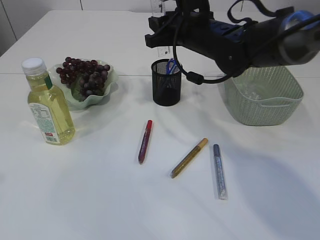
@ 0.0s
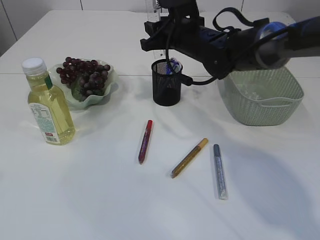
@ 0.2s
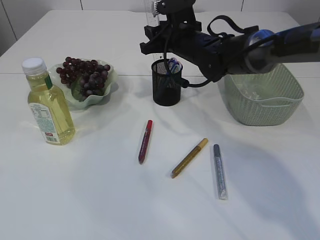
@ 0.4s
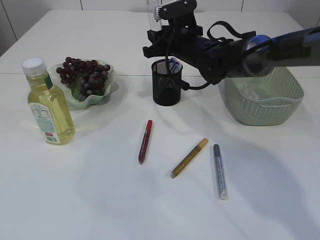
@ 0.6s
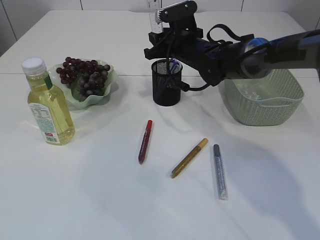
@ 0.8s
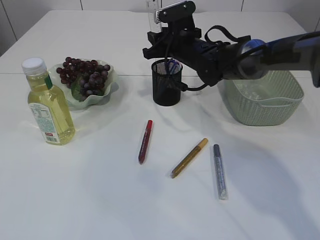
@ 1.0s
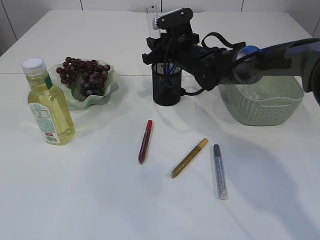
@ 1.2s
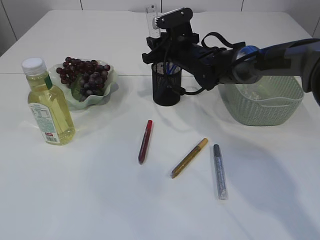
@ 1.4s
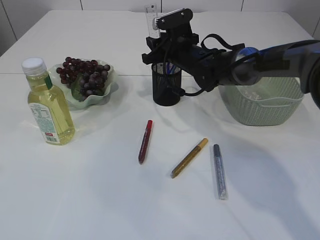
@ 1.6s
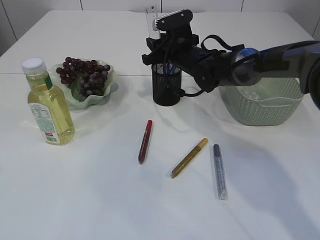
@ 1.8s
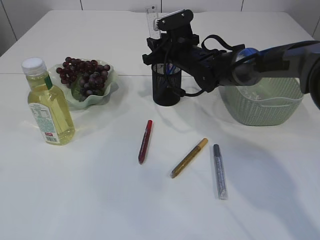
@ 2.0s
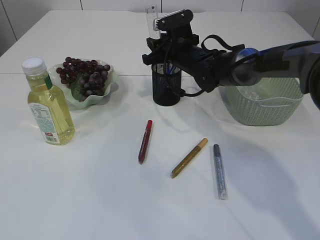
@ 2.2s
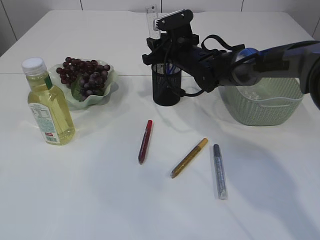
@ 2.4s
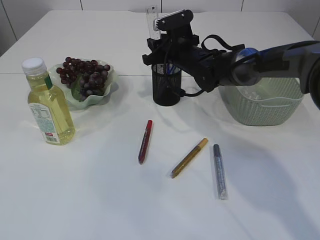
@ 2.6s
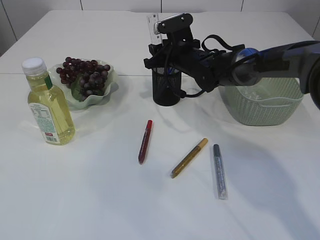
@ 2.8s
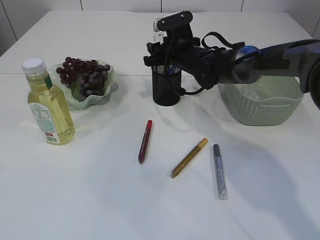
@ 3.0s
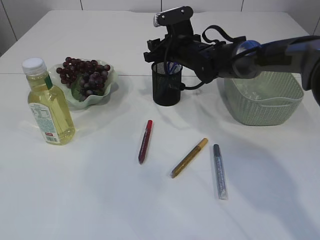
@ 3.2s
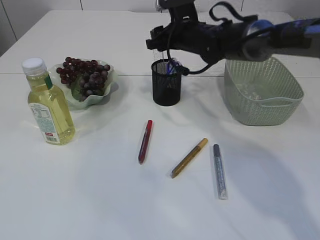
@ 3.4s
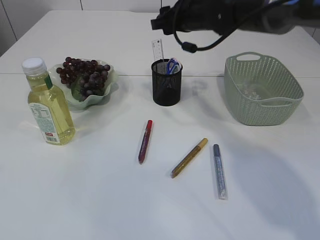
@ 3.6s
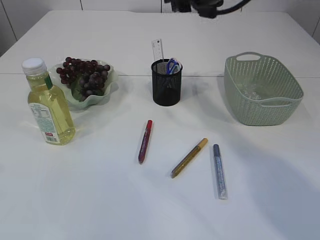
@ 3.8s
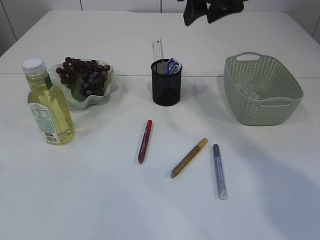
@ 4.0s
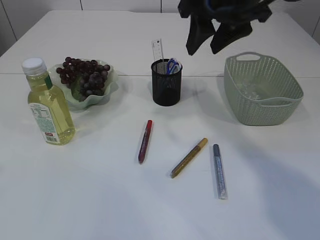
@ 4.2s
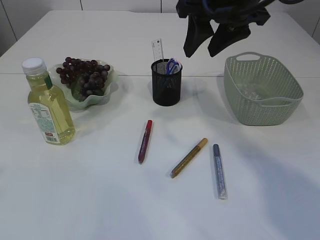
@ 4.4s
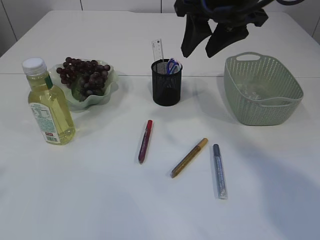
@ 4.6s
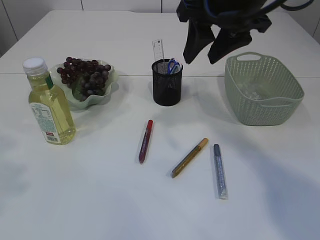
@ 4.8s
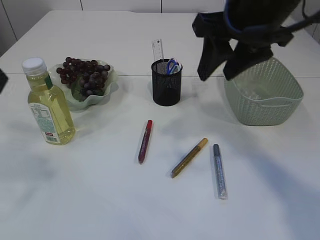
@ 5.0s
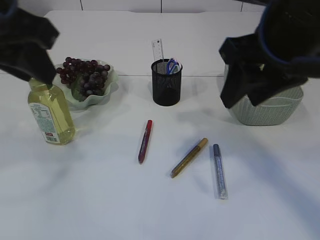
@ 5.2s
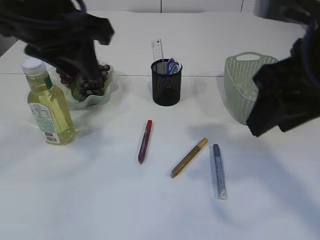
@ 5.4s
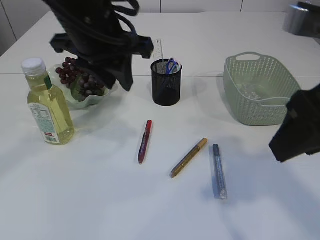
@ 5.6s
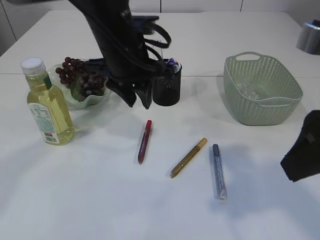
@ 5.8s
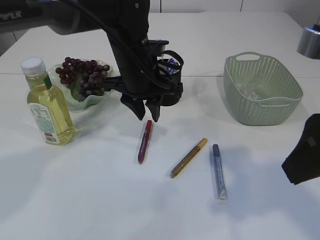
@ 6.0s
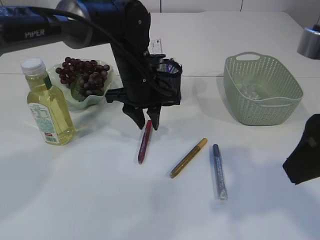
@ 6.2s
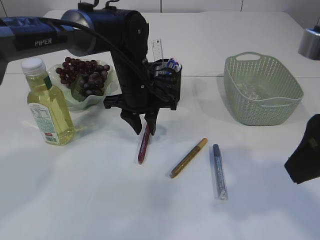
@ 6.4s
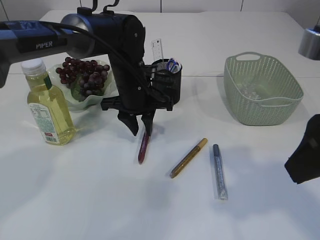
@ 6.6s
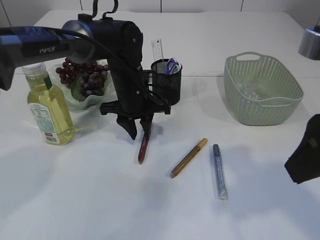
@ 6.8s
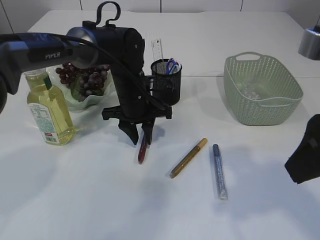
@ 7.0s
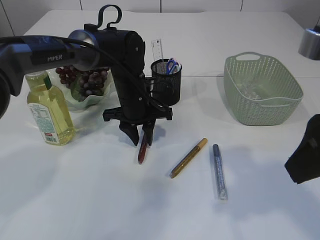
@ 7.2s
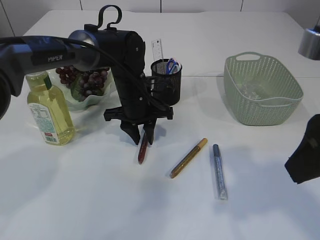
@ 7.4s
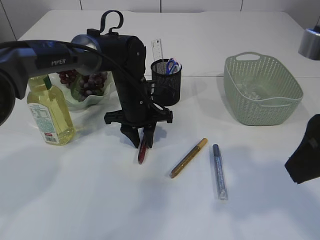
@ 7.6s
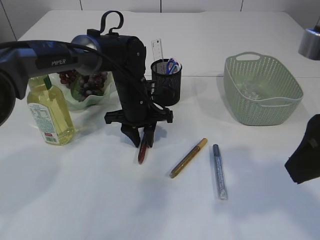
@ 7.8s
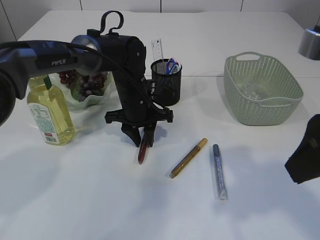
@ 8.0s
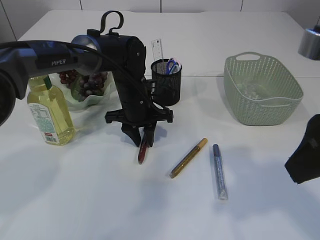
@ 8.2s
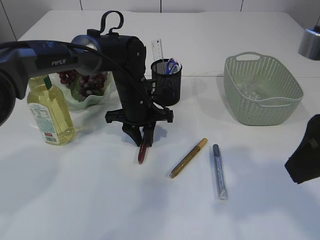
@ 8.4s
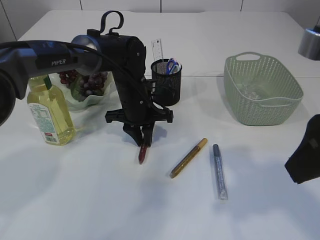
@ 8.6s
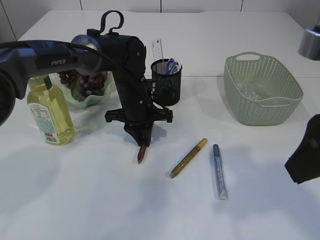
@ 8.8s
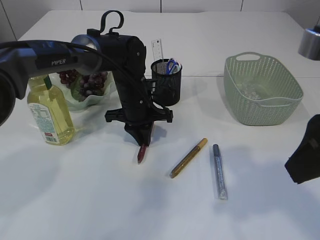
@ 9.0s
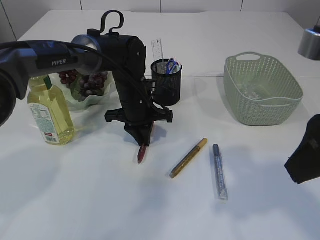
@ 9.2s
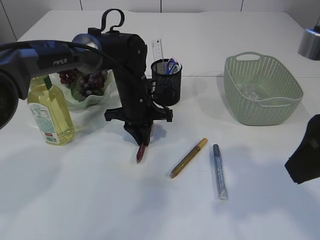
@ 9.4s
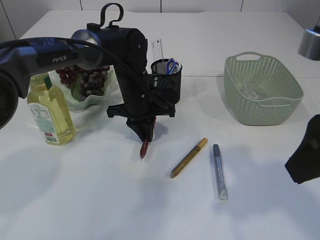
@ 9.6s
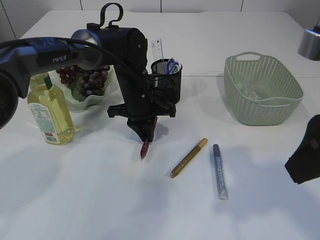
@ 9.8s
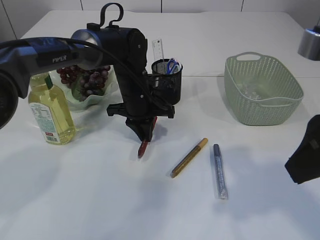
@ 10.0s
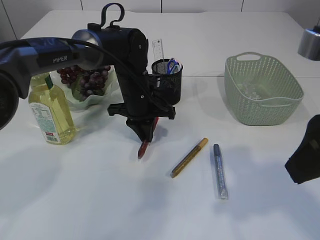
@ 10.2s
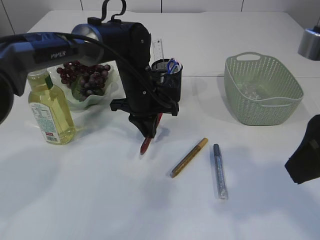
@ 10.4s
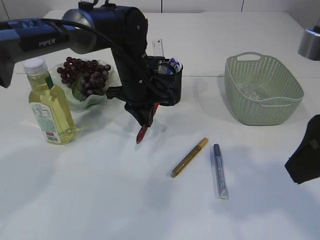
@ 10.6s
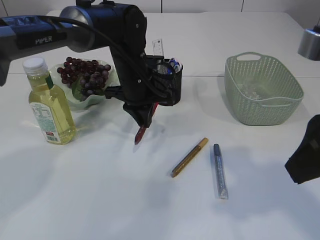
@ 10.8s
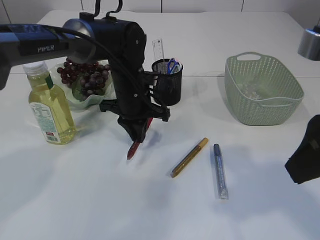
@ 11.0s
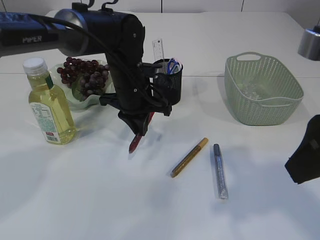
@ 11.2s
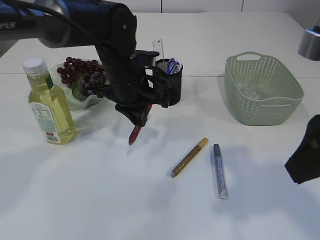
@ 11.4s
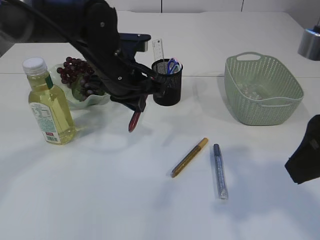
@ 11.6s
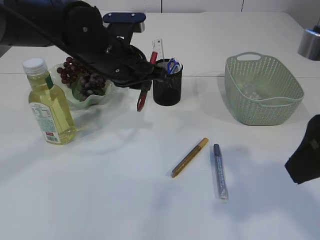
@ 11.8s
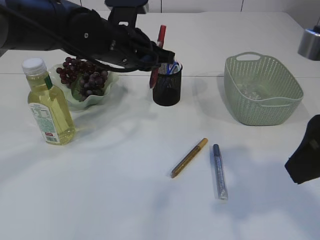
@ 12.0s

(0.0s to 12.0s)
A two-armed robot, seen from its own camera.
Step, 0.0s - 3.4s: Place the ruler into the pen holder.
Step, 3.6s - 11.4s: pick up the red glue.
0.0s - 1.6s: The right gripper travels forward and downward by roughly 10 cm.
1.6s - 3.0s: Neither gripper changes place.
3.0s - 4.4s: The right gripper goes approximately 25 cm upward and backward.
4.4s - 6.0s: The right gripper goes about 20 cm backward. The left gripper goes roughly 40 cm forward, to the right and downward.
6.0s - 7.6s: The left gripper goes approximately 10 cm downward.
7.6s - 9.0s: Both grippers stay put.
9.0s - 10.4s: The grippers move only a little.
10.4s - 12.0s: The left gripper travels upward by some 10 cm.

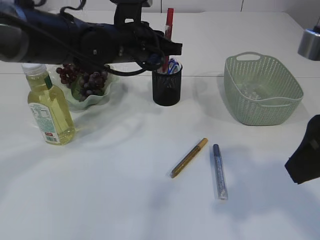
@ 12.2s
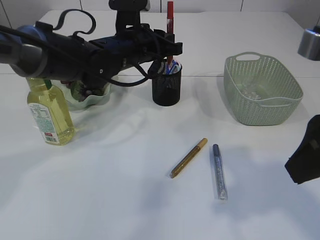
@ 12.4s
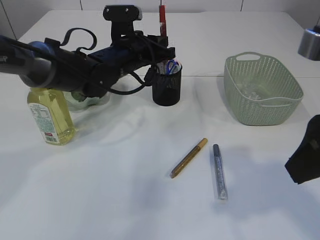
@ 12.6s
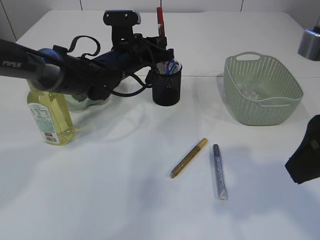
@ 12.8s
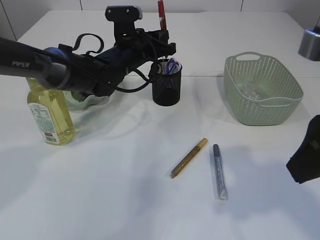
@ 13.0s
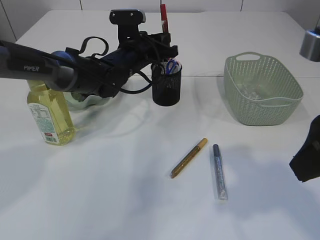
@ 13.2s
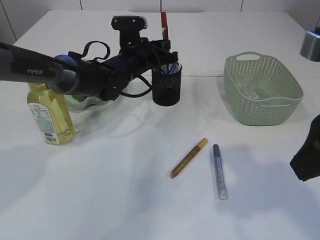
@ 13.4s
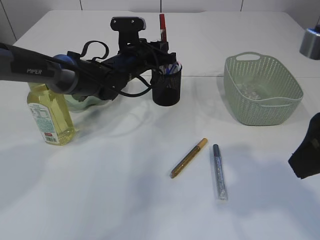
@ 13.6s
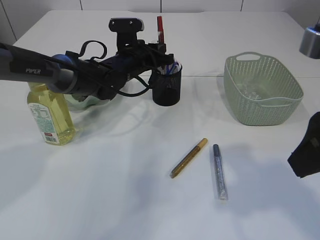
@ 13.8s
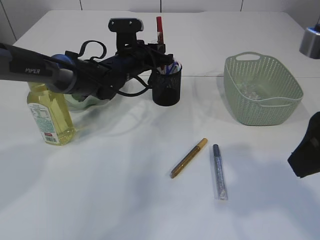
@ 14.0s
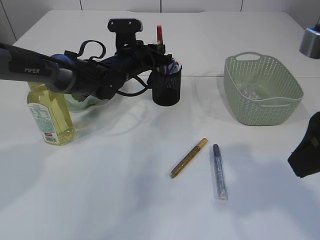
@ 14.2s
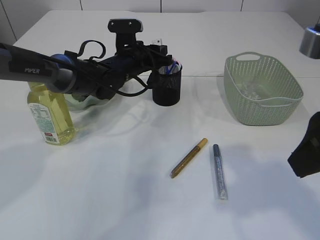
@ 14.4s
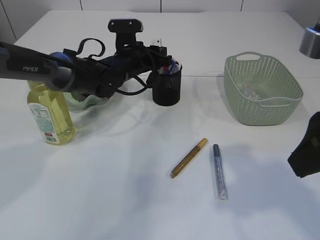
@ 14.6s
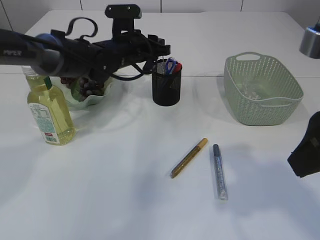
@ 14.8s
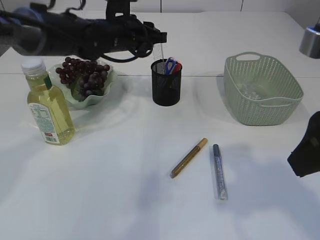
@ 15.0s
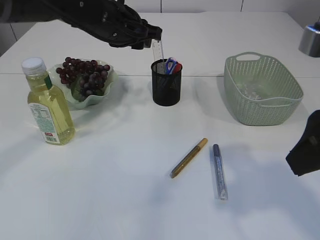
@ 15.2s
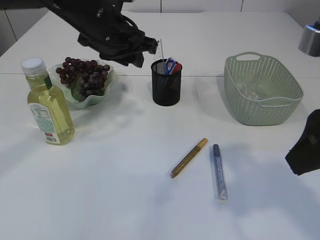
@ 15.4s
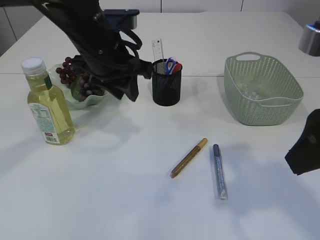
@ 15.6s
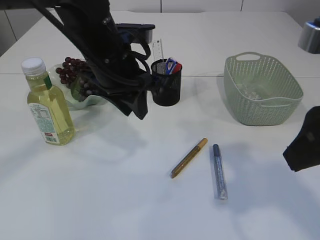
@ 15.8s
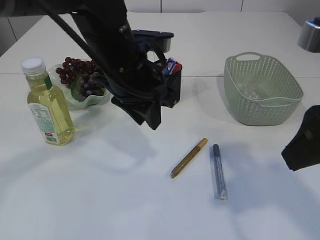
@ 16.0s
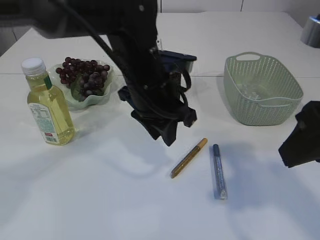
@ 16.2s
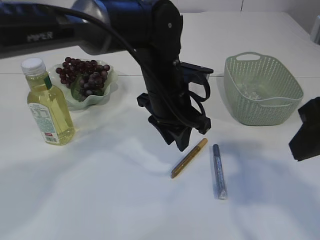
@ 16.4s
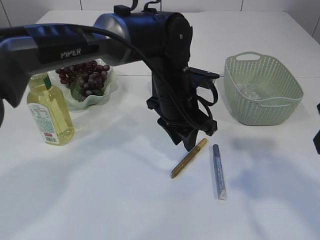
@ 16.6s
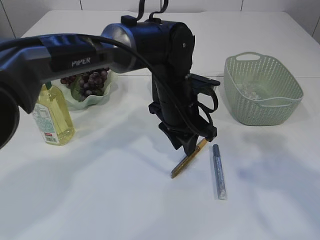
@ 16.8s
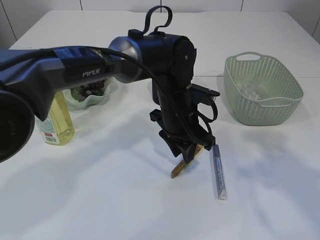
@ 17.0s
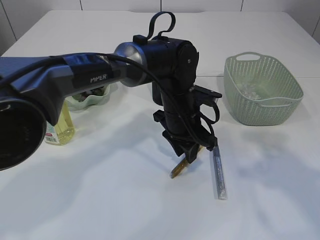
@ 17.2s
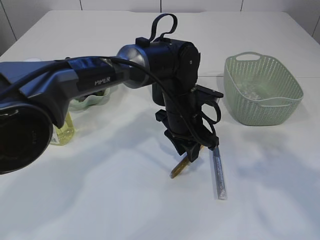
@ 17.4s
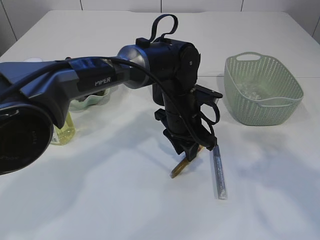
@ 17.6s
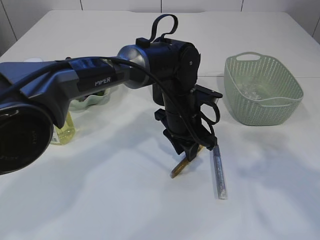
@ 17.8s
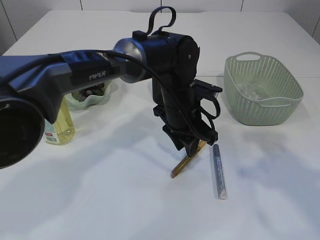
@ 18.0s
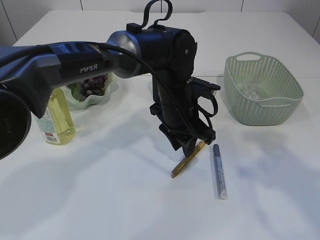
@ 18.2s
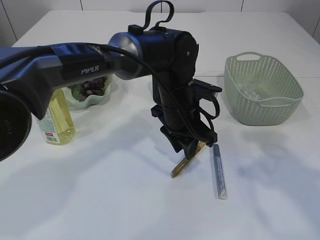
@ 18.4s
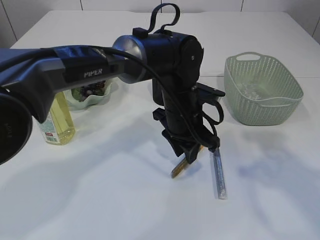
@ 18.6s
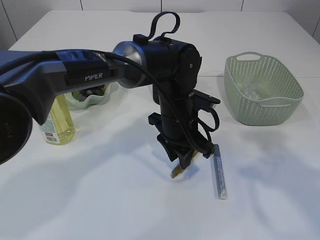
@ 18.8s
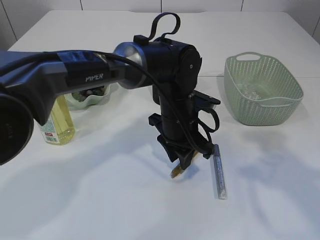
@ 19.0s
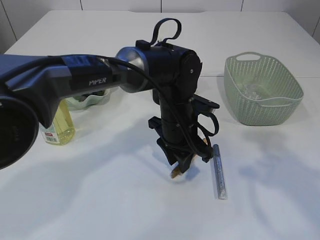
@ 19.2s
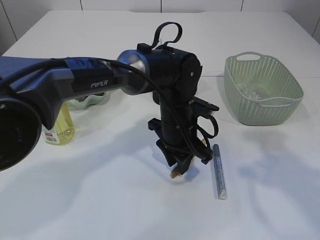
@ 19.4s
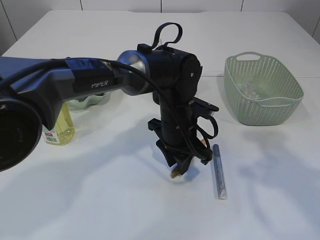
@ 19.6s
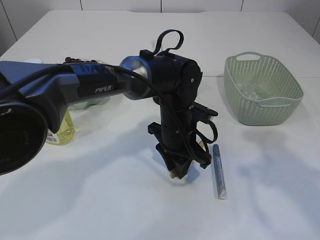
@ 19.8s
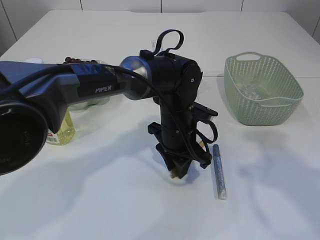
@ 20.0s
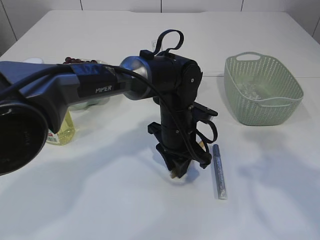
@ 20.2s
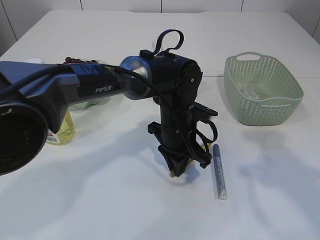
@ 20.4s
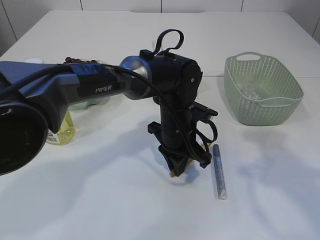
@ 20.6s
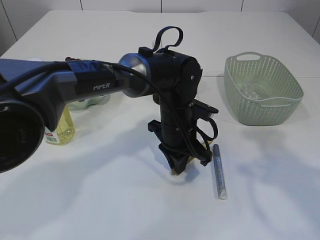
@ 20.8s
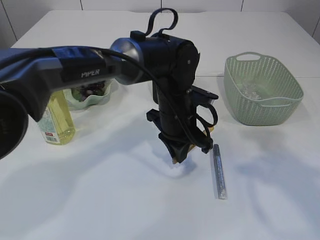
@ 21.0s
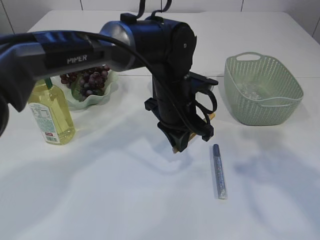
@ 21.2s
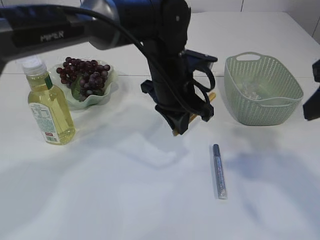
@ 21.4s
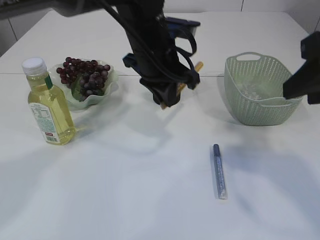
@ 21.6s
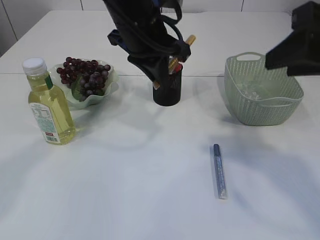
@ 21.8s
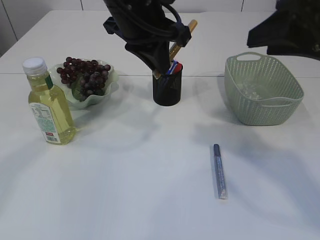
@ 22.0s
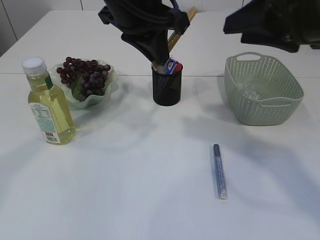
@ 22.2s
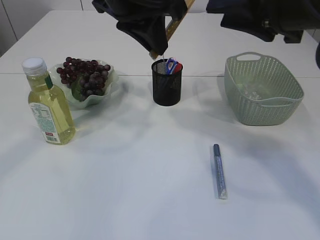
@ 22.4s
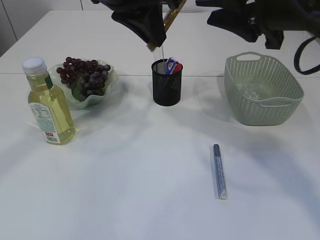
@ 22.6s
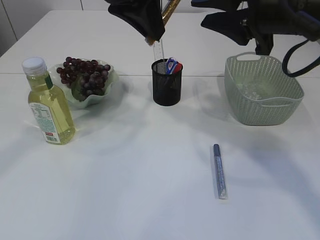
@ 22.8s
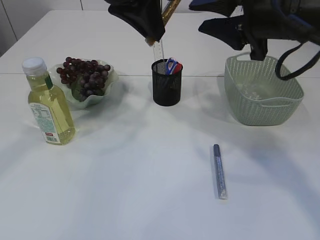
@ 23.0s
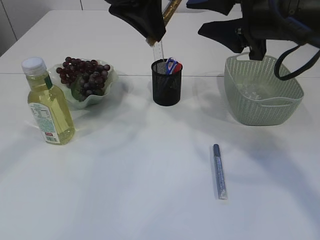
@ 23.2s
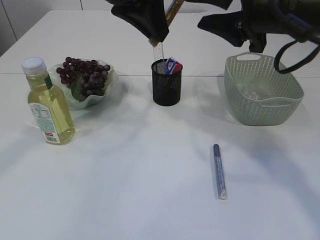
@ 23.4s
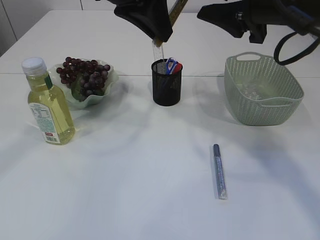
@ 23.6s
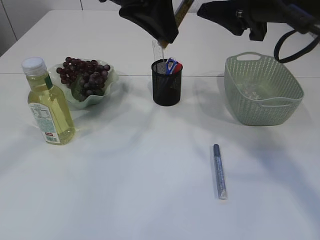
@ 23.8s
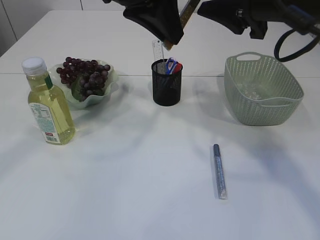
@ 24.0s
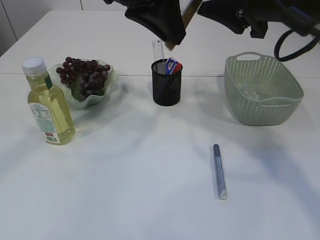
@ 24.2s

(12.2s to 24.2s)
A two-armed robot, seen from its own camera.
Step, 12.2s - 15.4s: place the red glue into the pen holder.
Step, 15.6s - 21.4s: pick up the yellow glue.
12.2s - 13.8s: The left gripper shifts some 10 cm downward and forward.
13.8s - 15.2s: The left gripper goes approximately 10 cm upward.
15.2s - 16.6s: The left gripper heads to the right, downward and backward, covering some 15 cm.
16.6s - 18.2s: The grippers move only a little.
18.2s - 19.8s: There are only small adjustments of the grippers.
19.8s - 21.2s: The left gripper travels upward by approximately 5 cm.
21.2s - 22.6s: The left gripper goes roughly 20 cm upward. The right gripper is displaced forward and to the left by roughly 10 cm.
22.6s - 24.2s: The grippers make only small movements.
